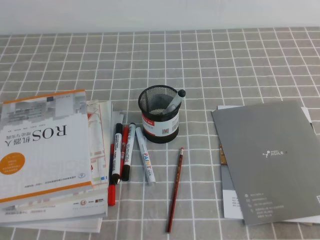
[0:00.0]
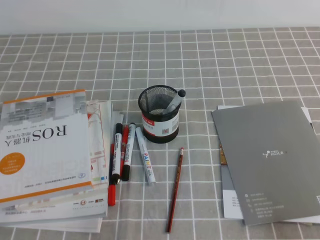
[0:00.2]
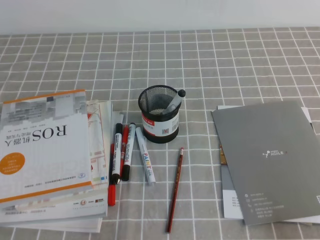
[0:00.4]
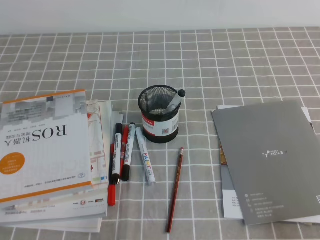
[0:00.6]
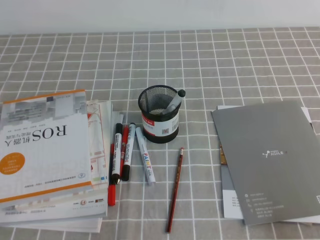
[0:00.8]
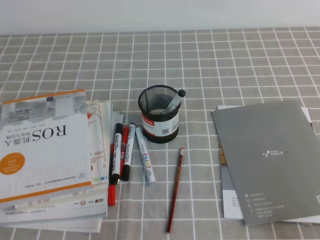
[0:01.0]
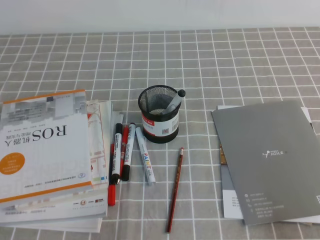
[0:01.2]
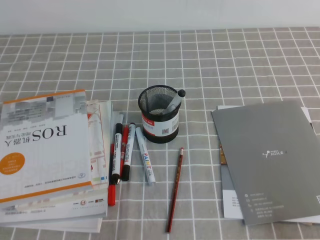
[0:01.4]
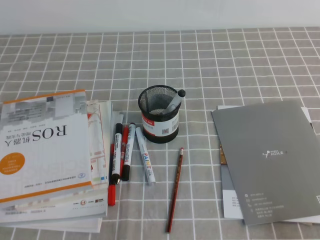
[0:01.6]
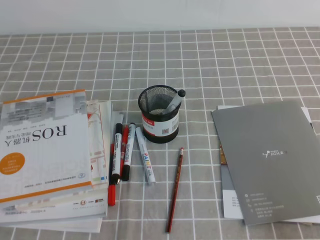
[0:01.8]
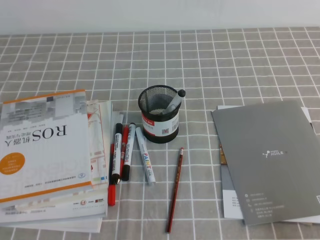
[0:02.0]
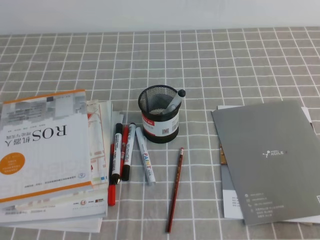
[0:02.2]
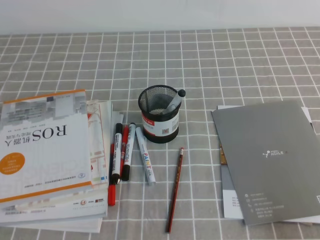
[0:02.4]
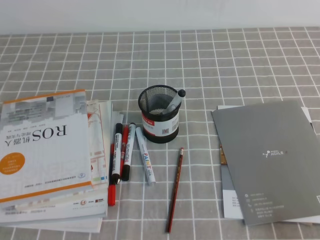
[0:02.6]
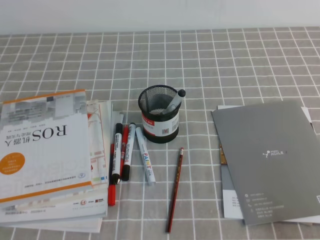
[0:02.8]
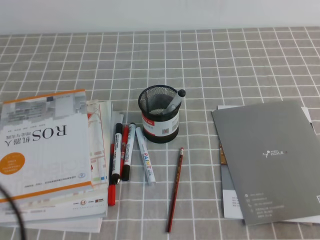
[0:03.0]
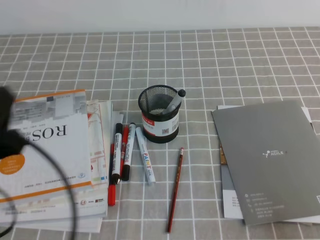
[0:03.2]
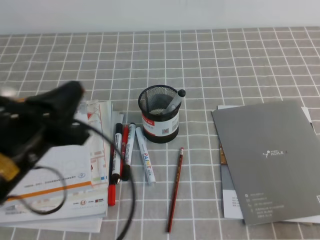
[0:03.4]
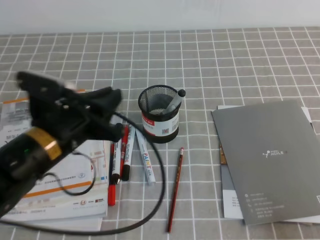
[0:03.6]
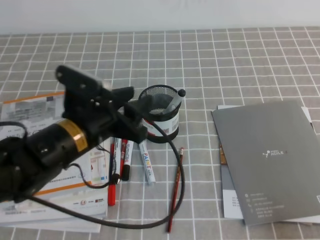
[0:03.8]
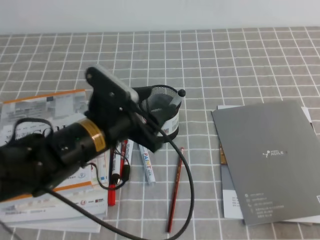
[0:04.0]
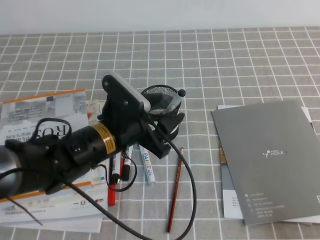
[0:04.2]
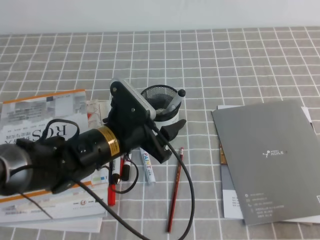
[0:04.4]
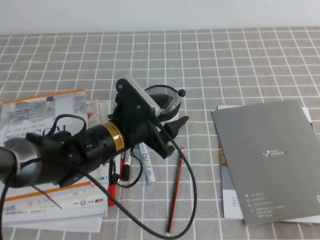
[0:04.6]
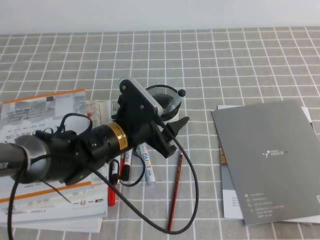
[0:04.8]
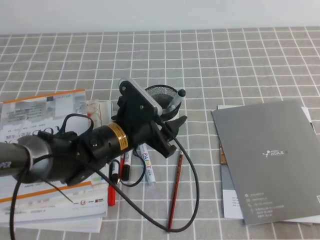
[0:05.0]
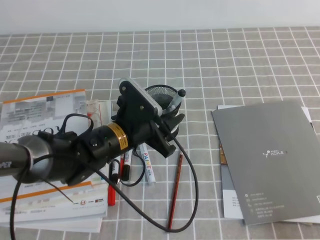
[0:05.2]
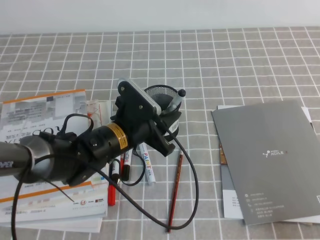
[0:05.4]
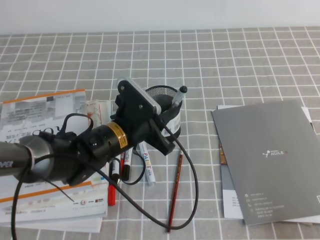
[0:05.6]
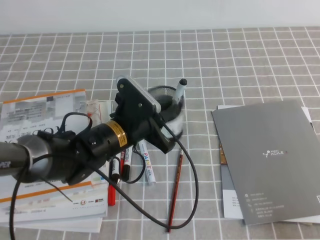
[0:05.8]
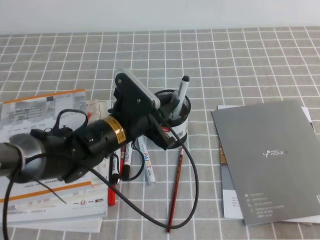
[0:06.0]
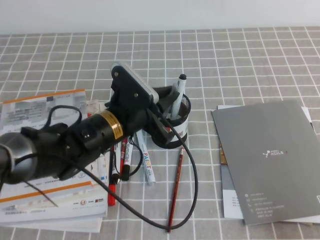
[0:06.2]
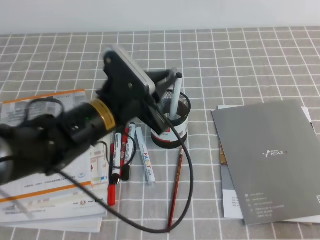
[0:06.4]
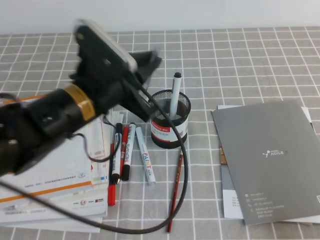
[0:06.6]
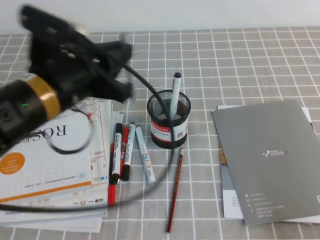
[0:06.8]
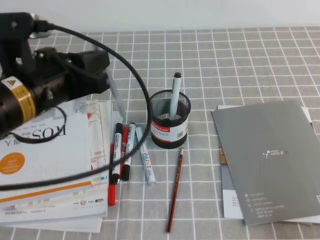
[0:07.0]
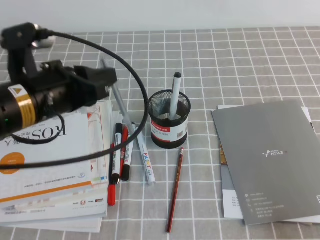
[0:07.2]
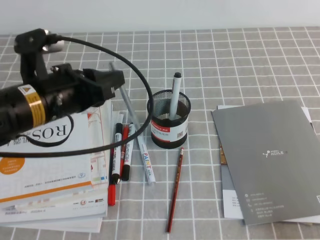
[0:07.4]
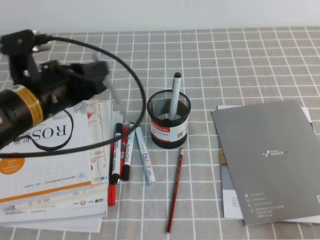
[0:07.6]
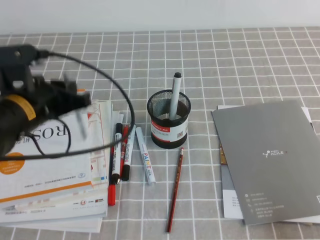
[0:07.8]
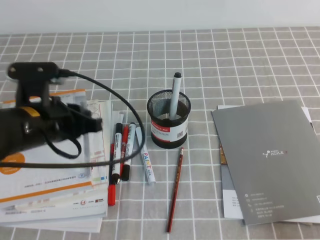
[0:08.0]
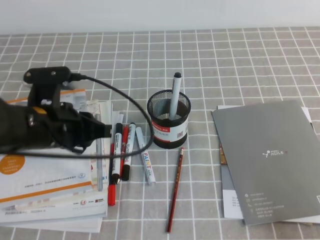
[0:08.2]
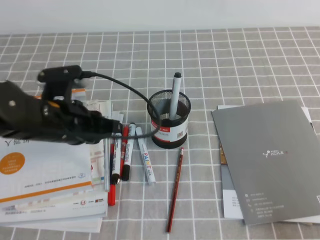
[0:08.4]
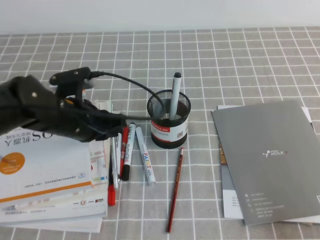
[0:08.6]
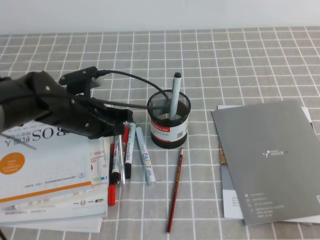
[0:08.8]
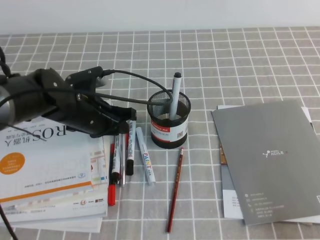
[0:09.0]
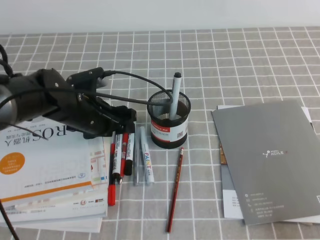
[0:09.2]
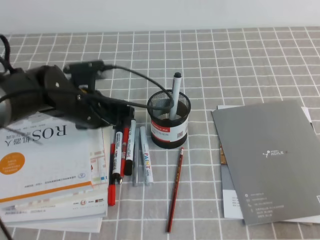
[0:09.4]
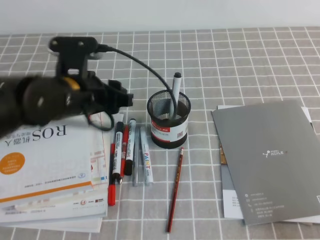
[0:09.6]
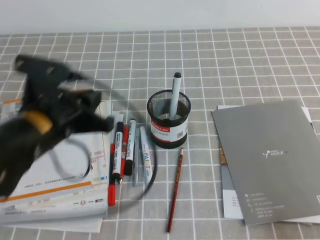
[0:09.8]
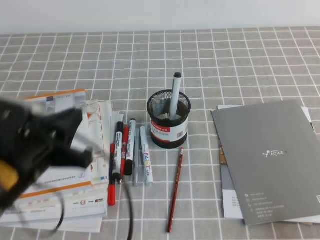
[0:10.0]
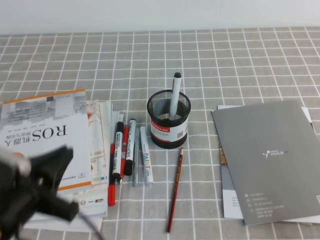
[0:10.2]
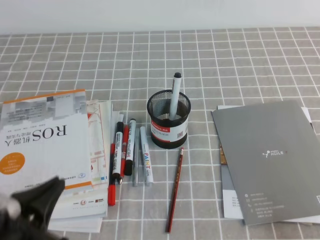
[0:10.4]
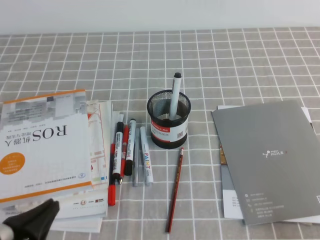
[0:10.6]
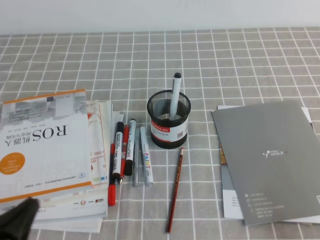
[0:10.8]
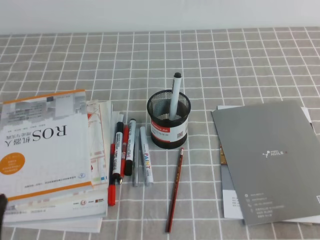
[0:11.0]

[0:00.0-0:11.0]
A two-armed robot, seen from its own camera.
0:01.6 to 0:03.2: The left gripper is displaced upward and forward by about 15 cm.
0:03.2 to 0:04.8: The left gripper shifts about 25 cm to the right, forward and downward, and opens its fingers.
0:04.8 to 0:06.2: The left gripper closes its fingers.
0:06.2 to 0:07.8: The left gripper travels to the left and upward by approximately 15 cm.
0:07.8 to 0:09.4: The left gripper heads to the right, downward and forward, covering approximately 10 cm, and opens up.
0:09.4 to 0:11.0: The left gripper moves backward and to the left, roughly 30 cm, and closes.
